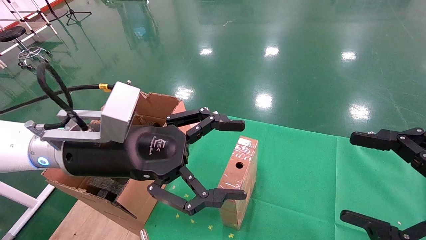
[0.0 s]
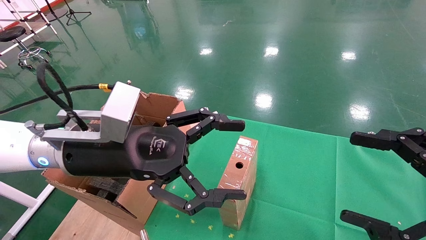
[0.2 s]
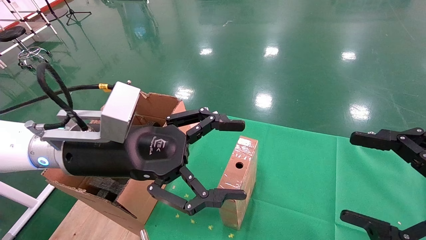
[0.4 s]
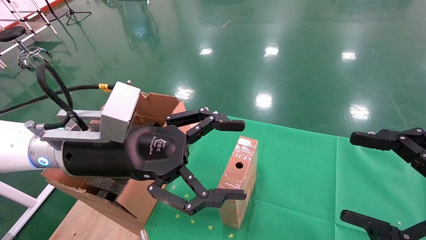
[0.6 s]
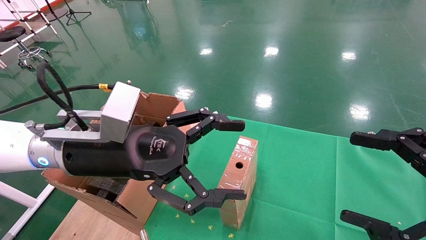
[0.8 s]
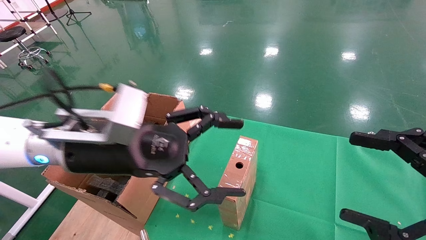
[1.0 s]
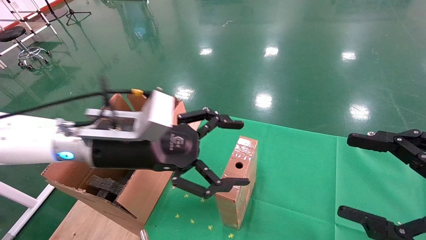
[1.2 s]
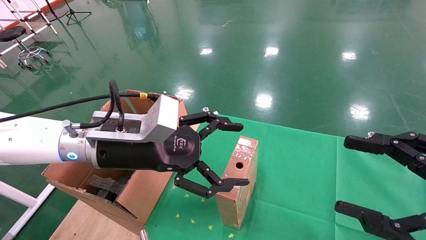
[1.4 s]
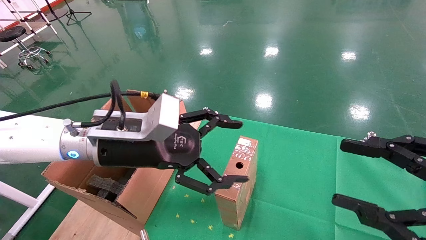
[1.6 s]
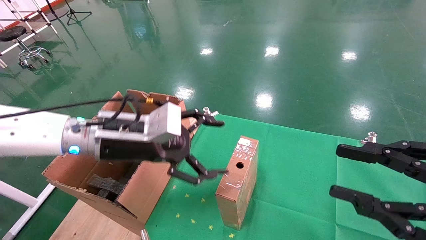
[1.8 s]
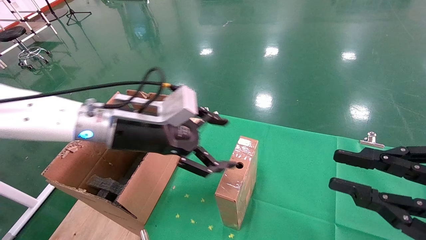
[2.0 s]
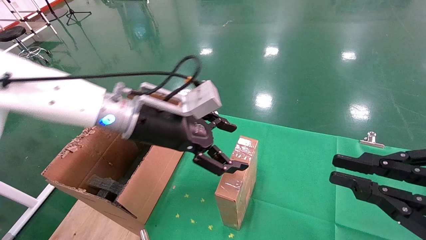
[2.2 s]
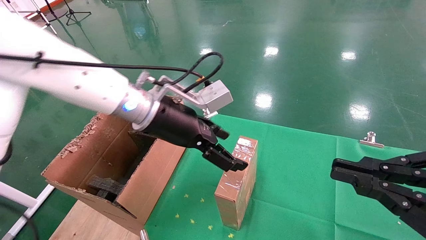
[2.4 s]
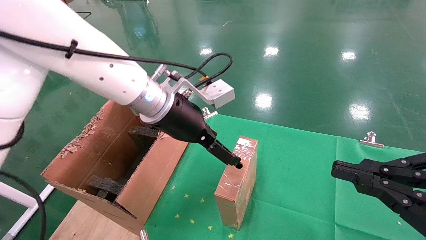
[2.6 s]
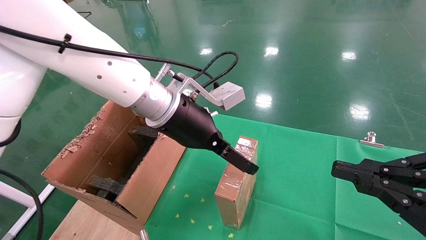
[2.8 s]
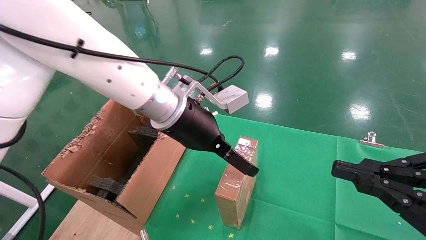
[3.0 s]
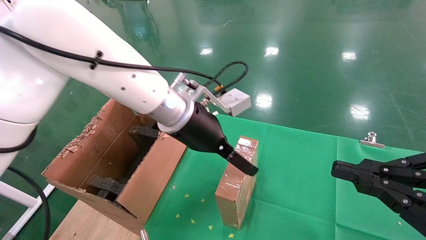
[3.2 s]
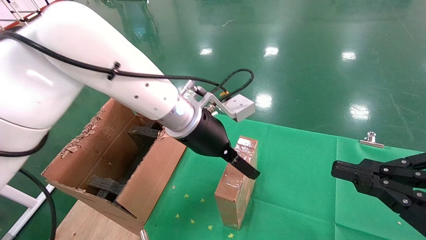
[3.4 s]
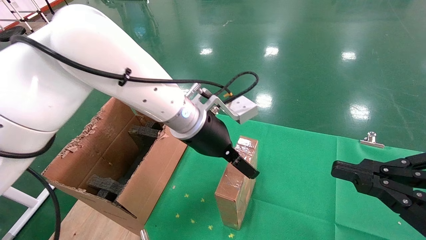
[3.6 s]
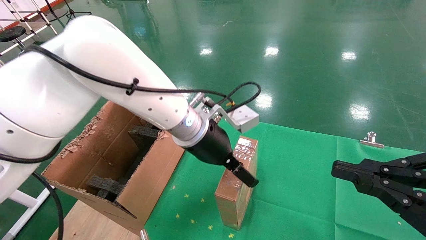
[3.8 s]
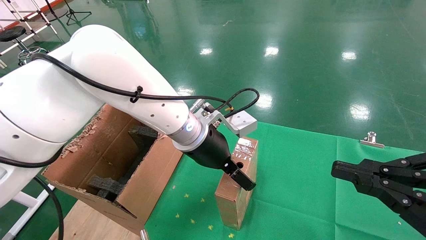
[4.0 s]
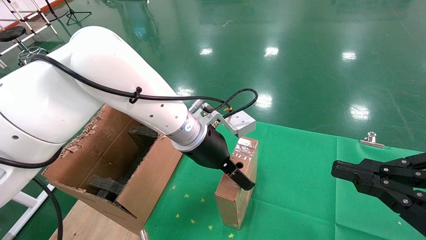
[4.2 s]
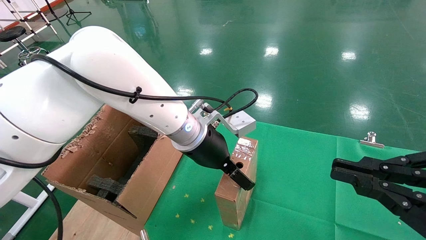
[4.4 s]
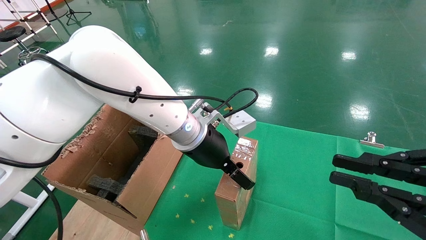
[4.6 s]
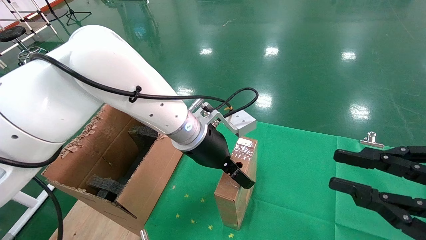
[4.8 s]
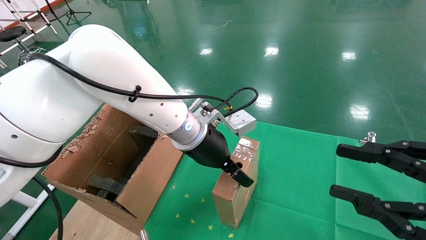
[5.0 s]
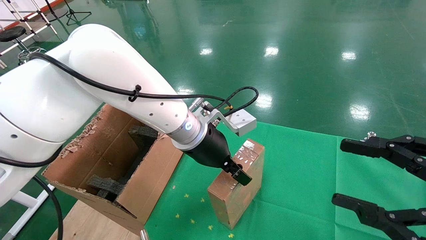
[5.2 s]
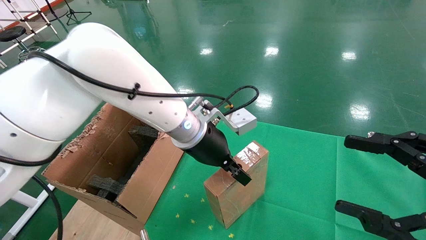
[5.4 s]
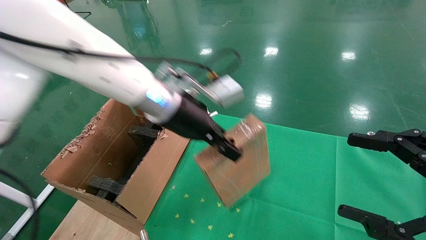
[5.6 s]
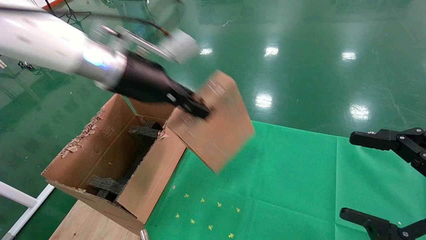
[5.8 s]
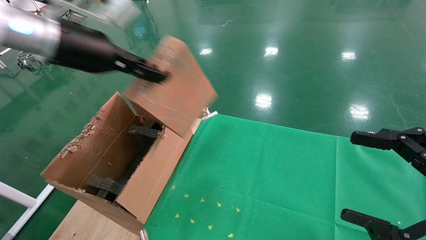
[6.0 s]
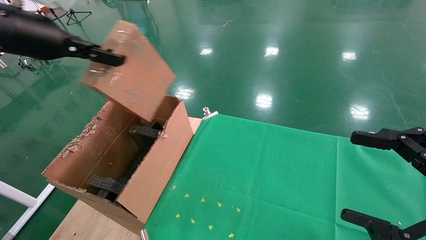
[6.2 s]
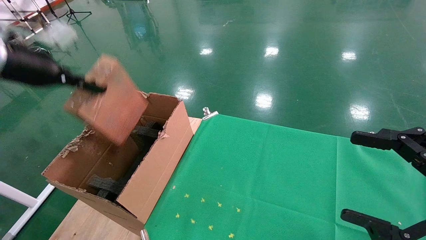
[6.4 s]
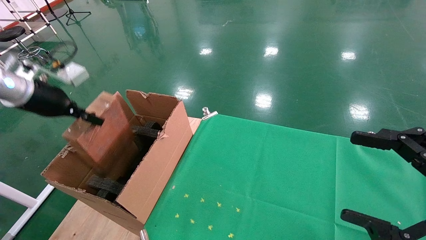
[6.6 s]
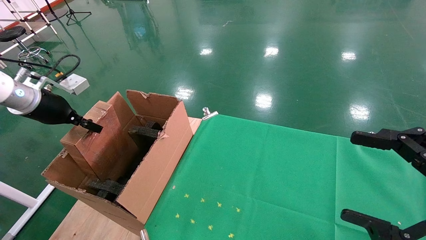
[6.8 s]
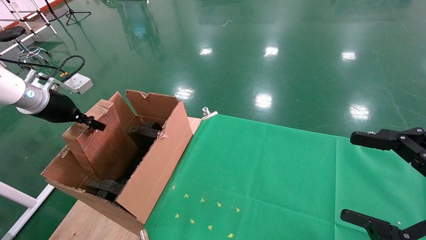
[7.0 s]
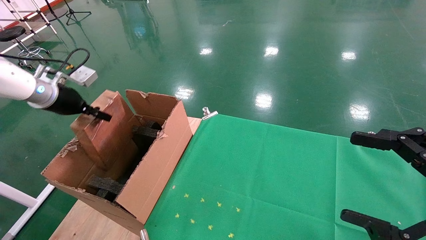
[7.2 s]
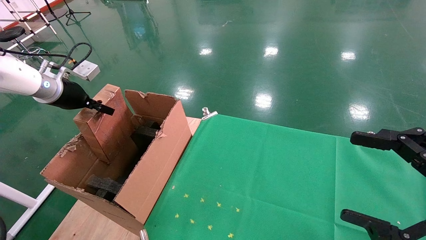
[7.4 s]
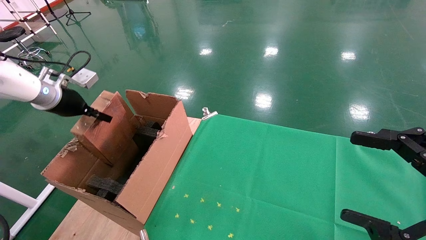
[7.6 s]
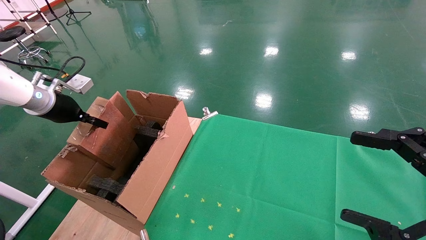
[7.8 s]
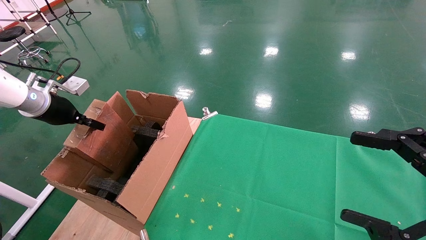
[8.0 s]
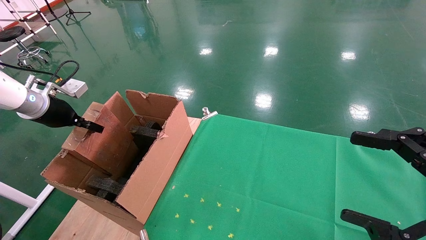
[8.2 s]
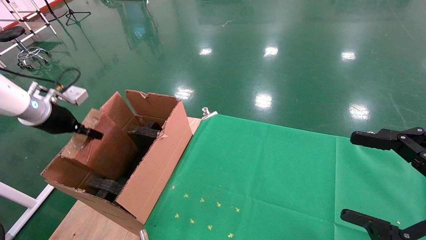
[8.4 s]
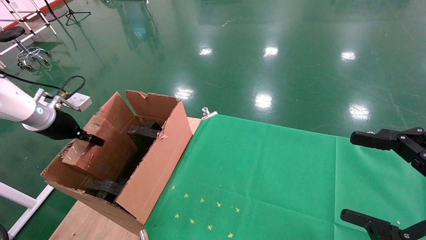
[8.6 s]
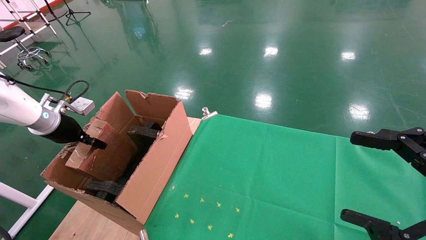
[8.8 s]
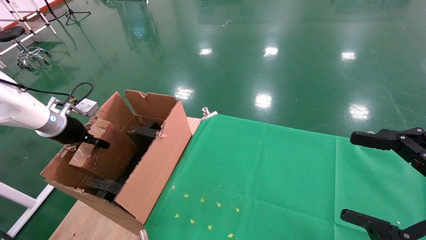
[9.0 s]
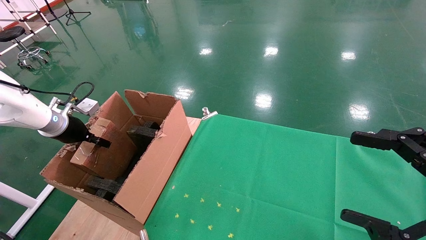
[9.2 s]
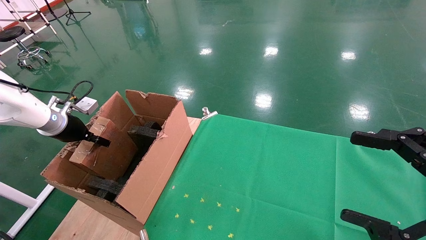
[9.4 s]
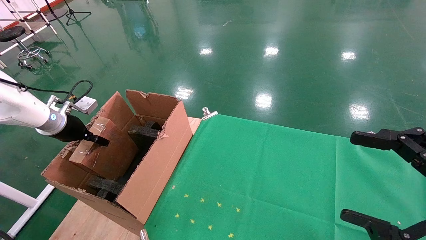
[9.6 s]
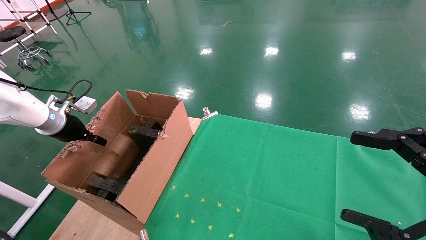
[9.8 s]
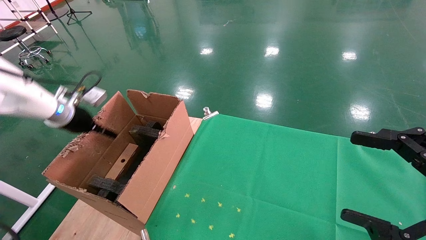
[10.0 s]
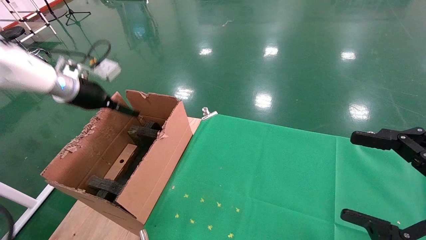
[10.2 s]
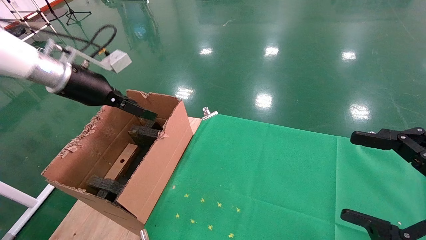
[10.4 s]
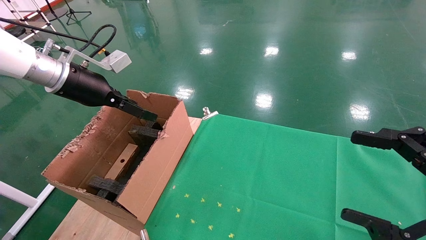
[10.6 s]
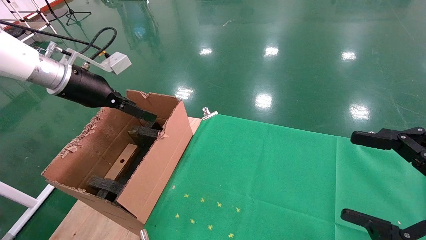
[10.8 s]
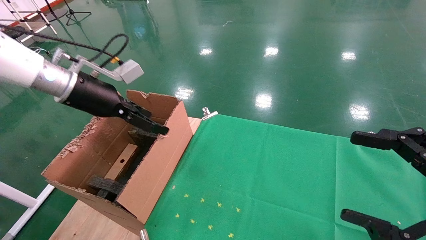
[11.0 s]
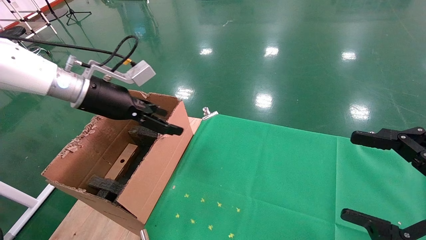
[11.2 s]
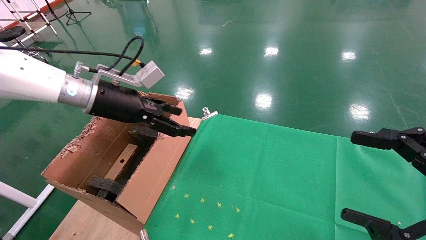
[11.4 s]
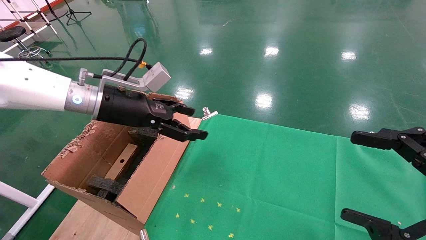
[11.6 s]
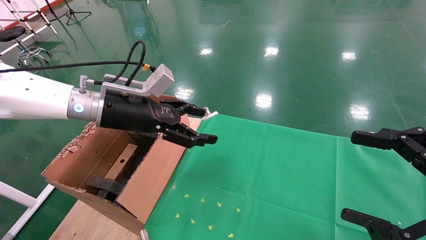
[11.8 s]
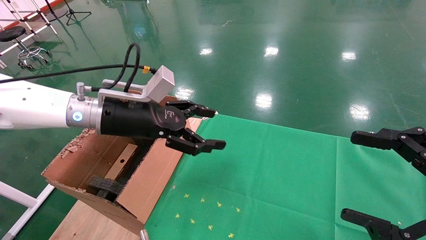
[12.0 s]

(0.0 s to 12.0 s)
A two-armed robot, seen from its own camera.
Task of the whole recording: using a robotic arm to pick up a cardboard box and palace it the carton.
Step, 1.2 s - 5.2 s: Pick up the mouse and the power cord paper box.
Step, 5.4 s - 10.0 s: Place the mouse and the power cord paper box into the container.
1.6 s - 3.0 s: The left gripper goes roughly 10 cm to the right and forward; the right gripper closes its fingers.
3.0 s - 4.4 s: The left gripper shifts by some 5 cm.
4.4 s - 6.0 s: The right gripper opens its fingers. Meanwhile the left gripper travels to the left and upward by about 25 cm, and closes its fingers.
6.0 s - 7.6 s: The left gripper shifts some 25 cm to the left, downward and forward.
7.6 s - 9.0 s: The left gripper moves downward, roughly 5 cm.
9.0 s - 10.4 s: The left gripper moves upward and to the right, approximately 15 cm, and opens up.
10.4 s - 12.0 s: The left gripper goes some 15 cm to the right.

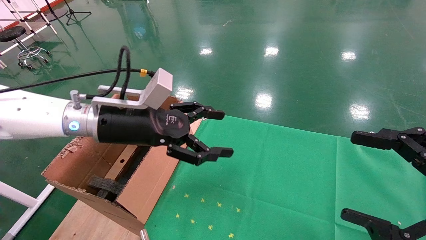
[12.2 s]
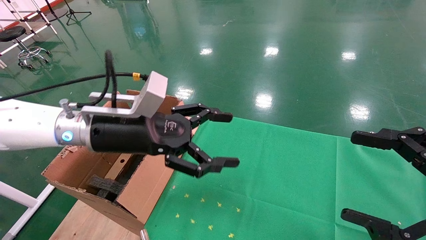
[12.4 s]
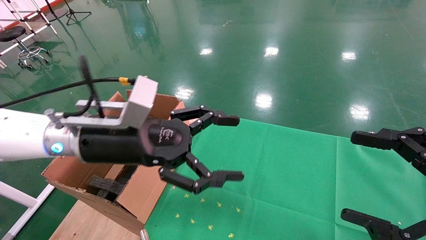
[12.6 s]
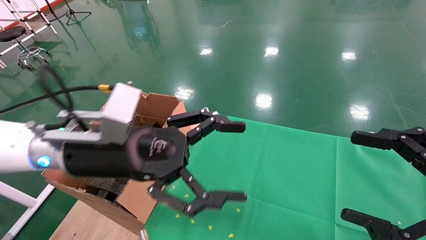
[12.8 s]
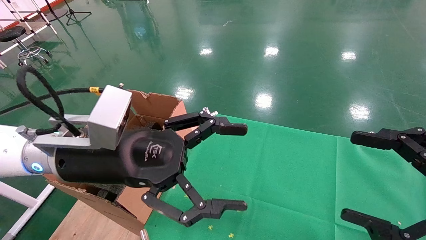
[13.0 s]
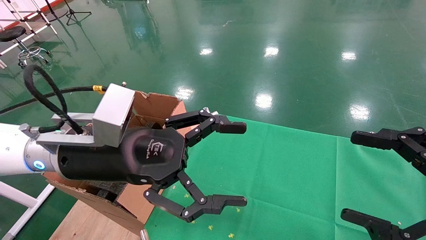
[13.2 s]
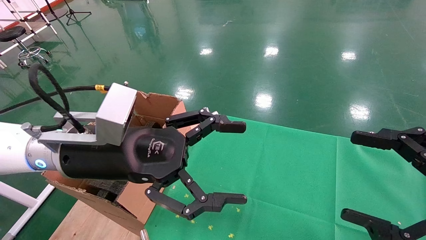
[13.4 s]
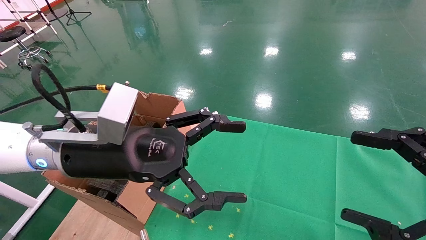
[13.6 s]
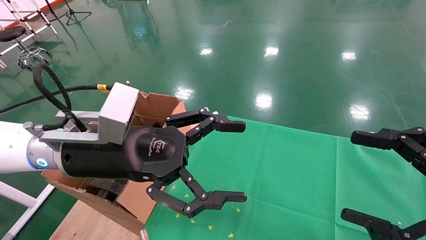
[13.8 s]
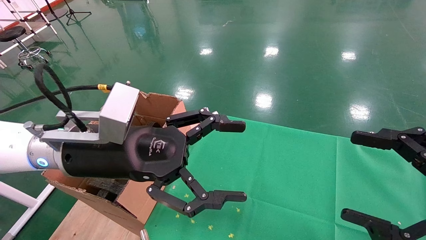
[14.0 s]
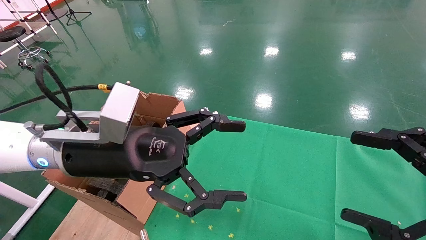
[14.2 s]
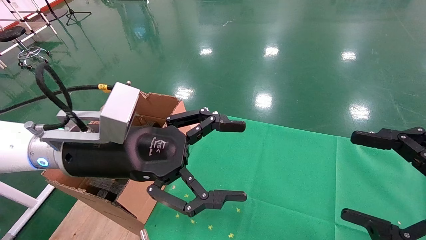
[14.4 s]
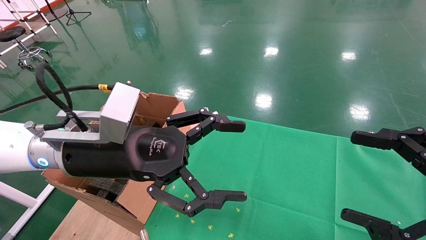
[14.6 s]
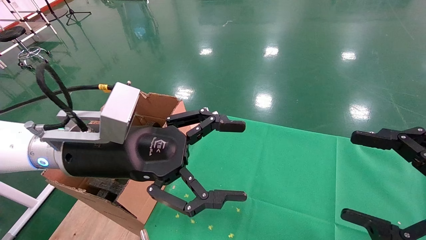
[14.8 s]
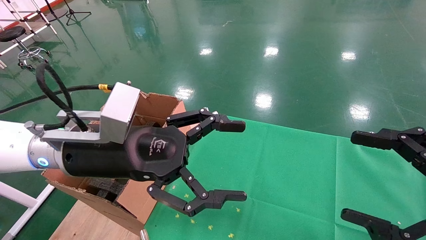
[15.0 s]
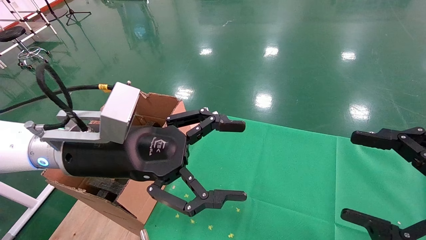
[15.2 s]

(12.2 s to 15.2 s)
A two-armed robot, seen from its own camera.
Task of the whole recording: using a robotic arm to pick up a cardboard box and palace it the carton.
12.2 s - 13.8 s: The left gripper travels backward by some 10 cm.
13.8 s - 15.2 s: Neither gripper changes place.

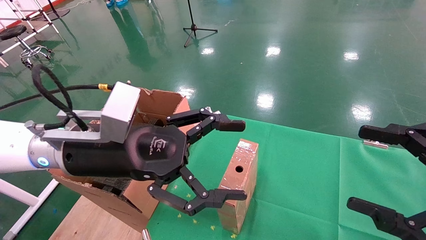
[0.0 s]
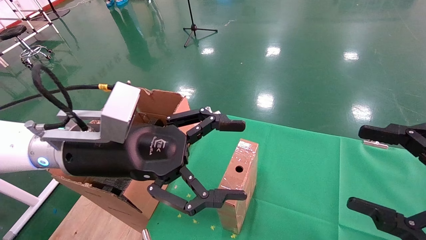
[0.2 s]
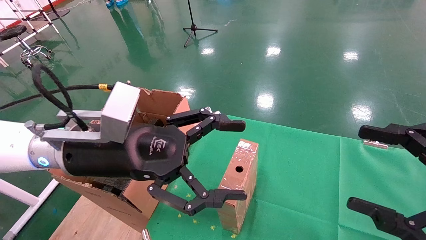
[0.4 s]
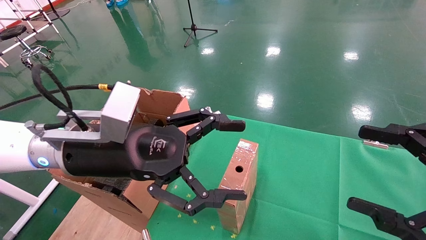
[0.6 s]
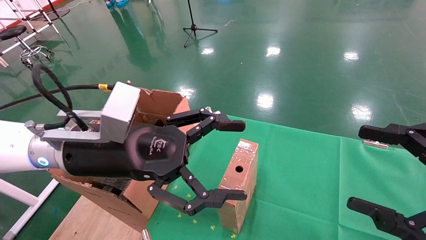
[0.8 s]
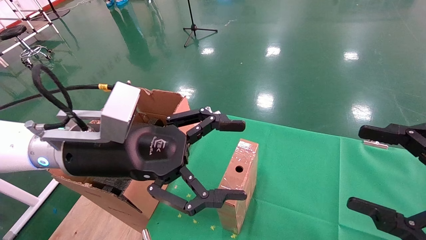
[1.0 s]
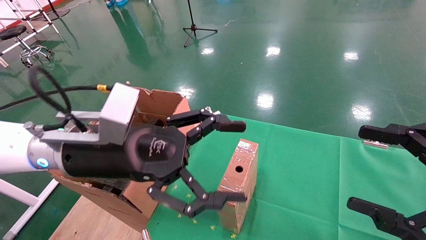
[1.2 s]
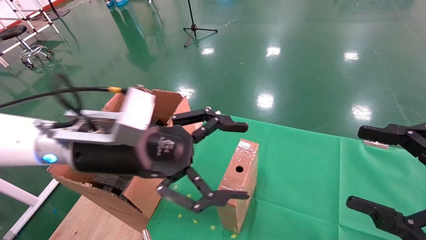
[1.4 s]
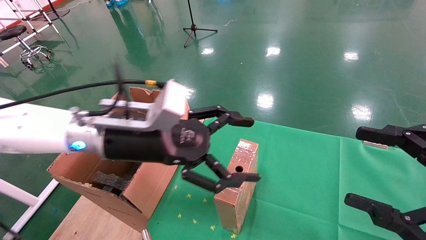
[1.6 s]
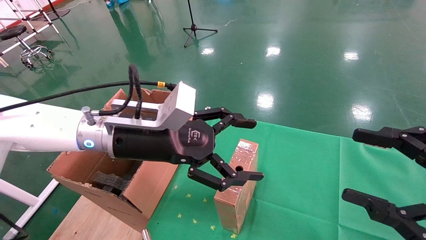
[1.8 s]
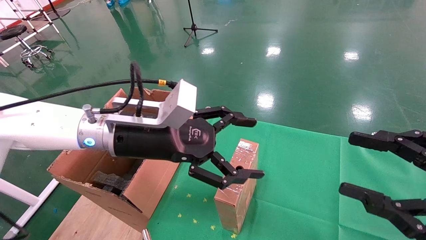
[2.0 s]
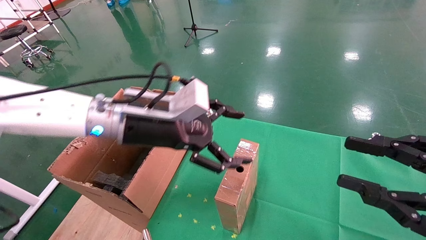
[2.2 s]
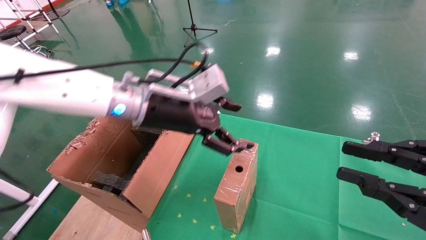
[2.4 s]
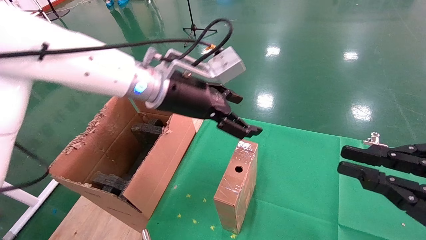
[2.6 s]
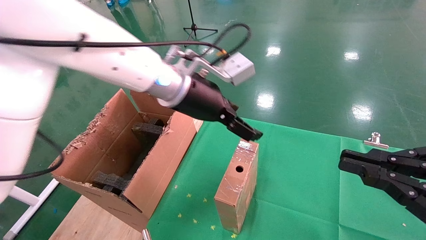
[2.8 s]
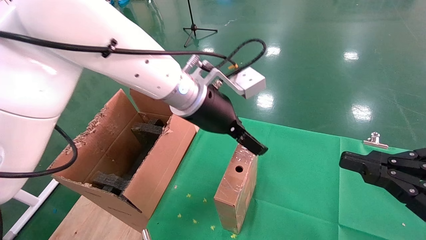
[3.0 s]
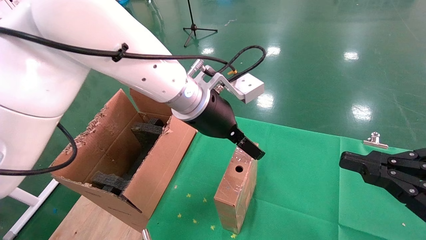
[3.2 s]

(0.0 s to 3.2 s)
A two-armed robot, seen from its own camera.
Task of the whole recording: using a robotic arm to pick up a cardboard box and palace it the carton.
0.0 s - 1.6 s: The grippers stay close to where they were, moving slightly.
1.6 s - 3.2 s: The left gripper moves to the right and forward, roughly 15 cm. Meanwhile the right gripper closes up.
